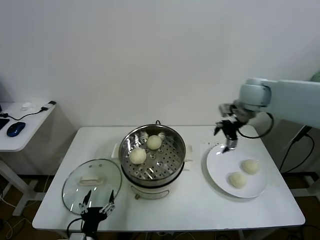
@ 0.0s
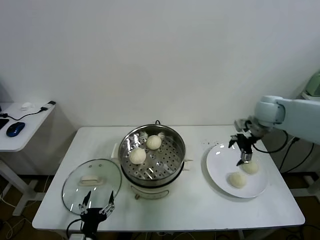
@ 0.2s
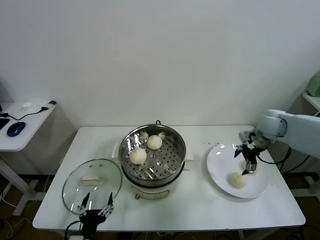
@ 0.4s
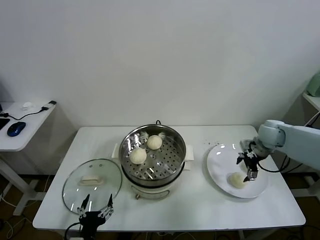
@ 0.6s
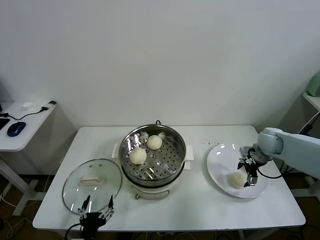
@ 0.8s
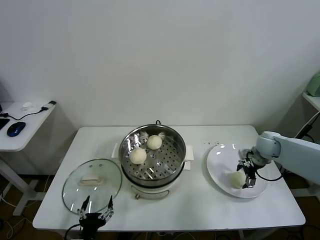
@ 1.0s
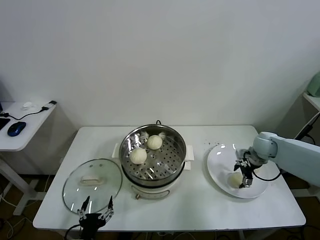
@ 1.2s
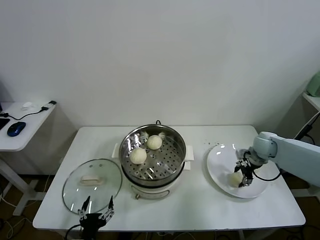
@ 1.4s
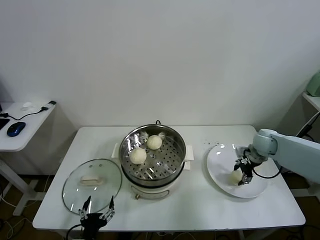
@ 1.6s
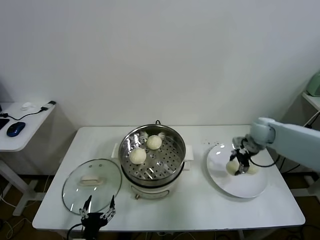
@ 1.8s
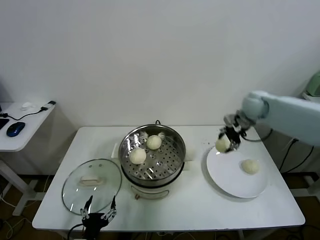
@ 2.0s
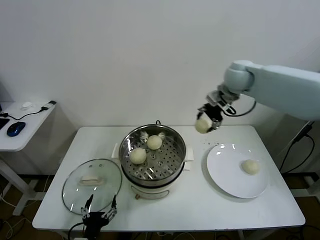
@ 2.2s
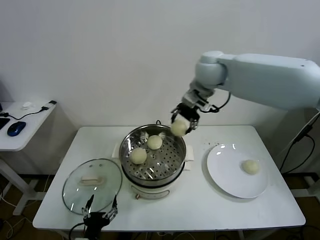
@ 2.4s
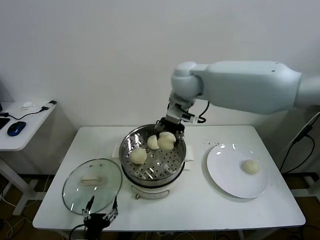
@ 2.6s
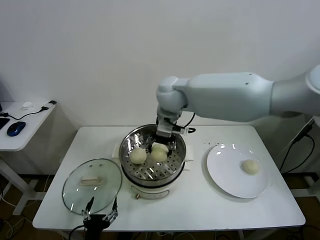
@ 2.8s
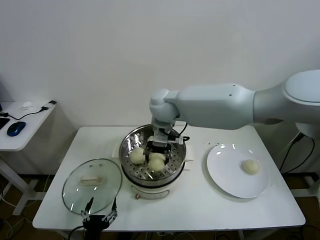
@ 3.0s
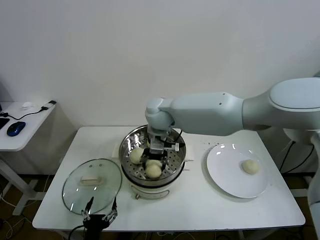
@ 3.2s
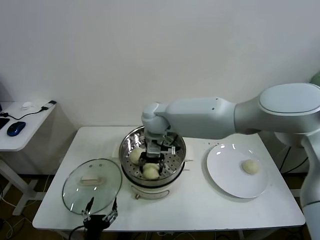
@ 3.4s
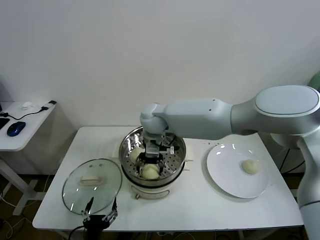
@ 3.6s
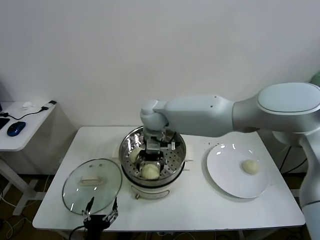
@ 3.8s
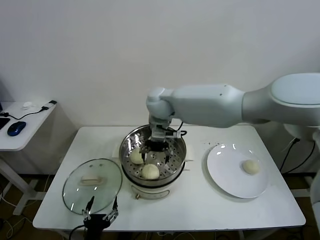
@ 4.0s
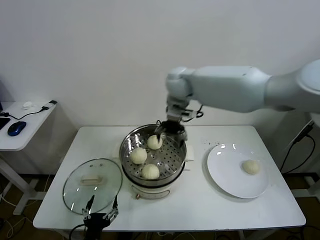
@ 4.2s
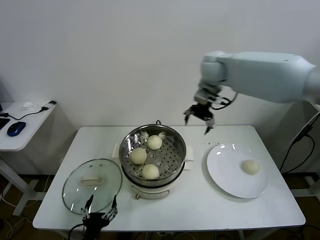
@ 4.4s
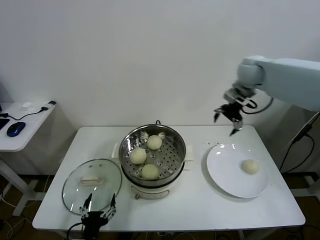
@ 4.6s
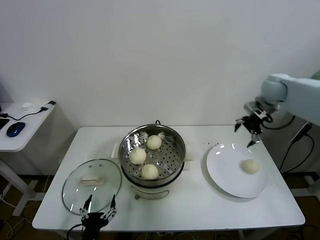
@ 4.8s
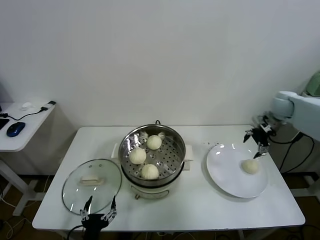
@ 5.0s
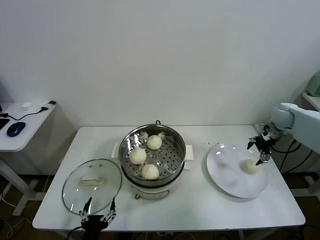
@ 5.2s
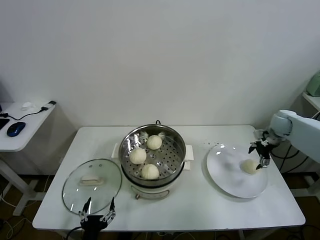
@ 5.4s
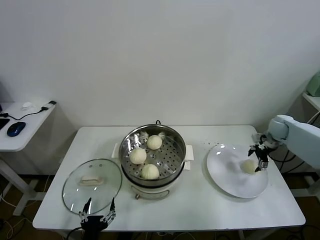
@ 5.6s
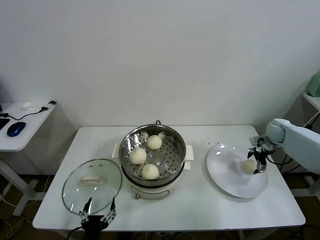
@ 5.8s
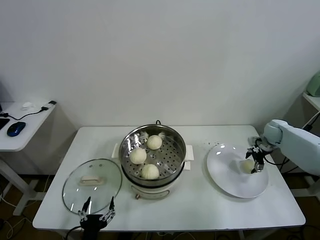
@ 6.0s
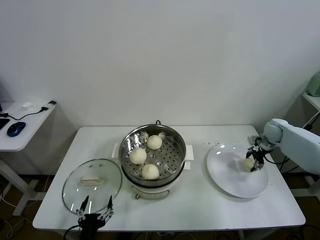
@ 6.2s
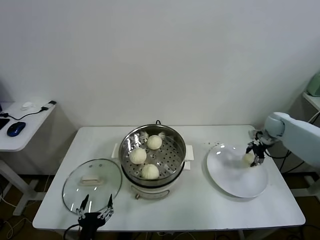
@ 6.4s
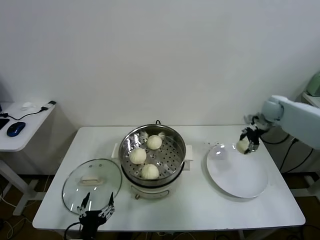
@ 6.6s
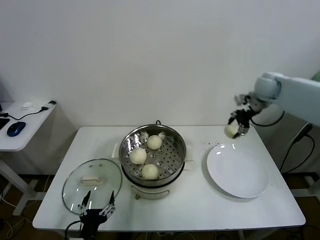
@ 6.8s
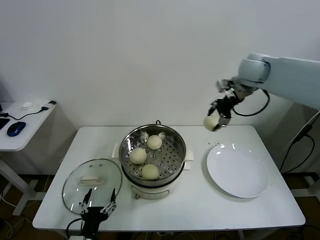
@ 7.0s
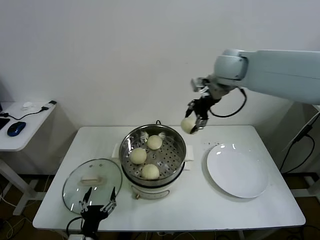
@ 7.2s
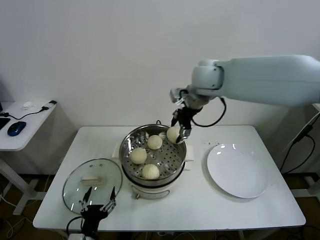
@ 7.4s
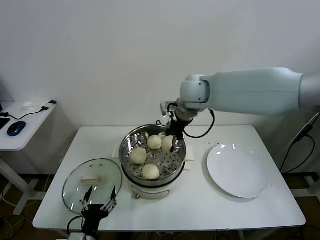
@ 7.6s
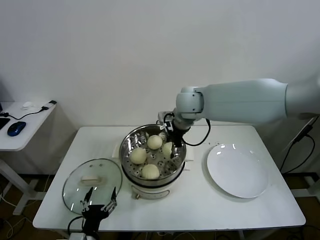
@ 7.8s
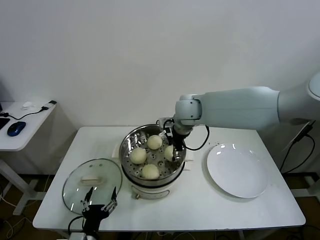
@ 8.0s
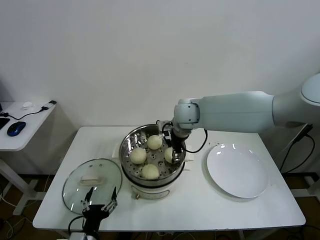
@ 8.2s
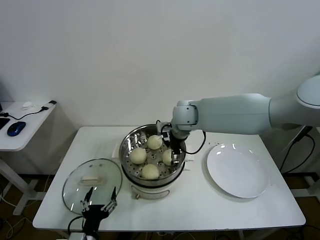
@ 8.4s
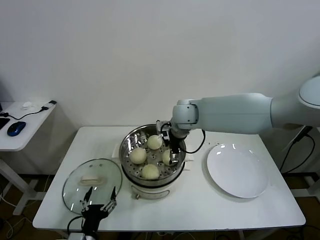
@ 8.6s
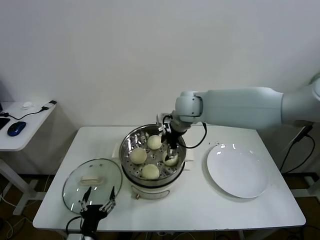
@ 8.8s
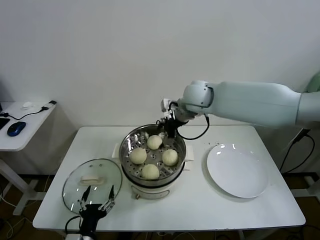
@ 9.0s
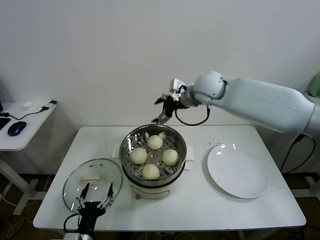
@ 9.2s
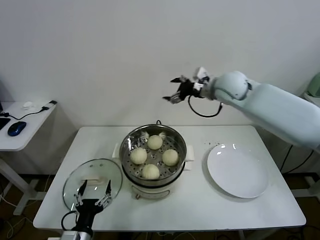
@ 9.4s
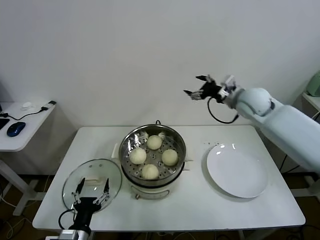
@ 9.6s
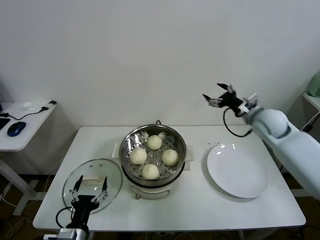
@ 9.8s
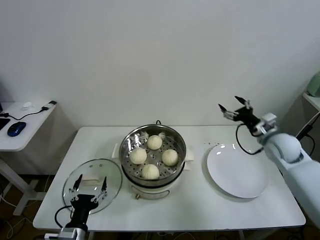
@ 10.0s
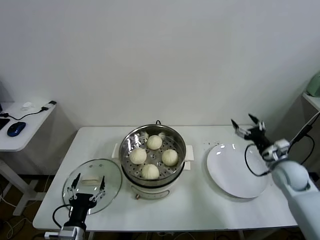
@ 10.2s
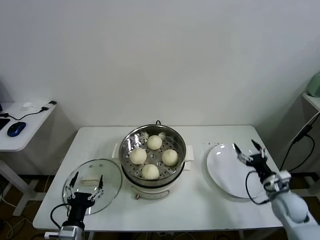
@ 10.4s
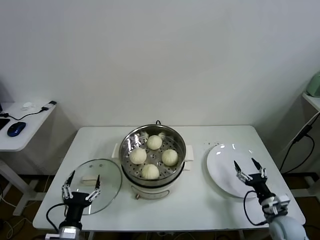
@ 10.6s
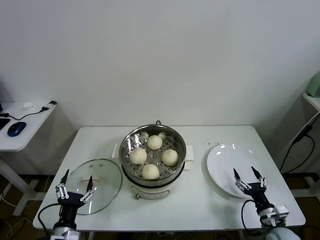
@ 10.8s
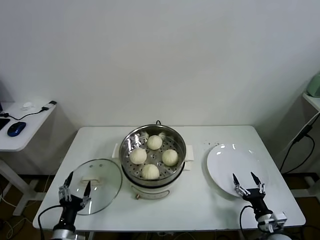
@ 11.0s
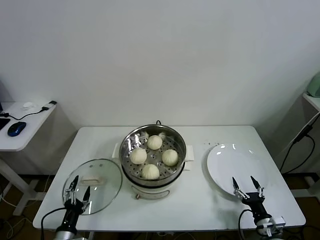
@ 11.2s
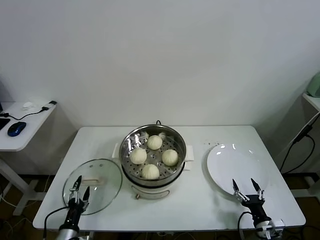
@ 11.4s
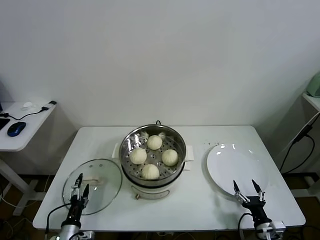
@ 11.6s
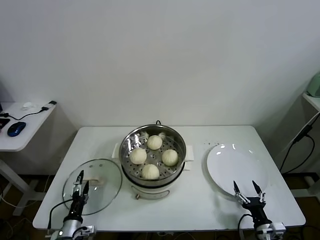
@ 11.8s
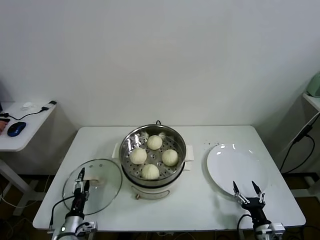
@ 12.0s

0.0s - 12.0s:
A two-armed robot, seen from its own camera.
Task of the whole recording: take steamed baozi put them in steamer.
Step, 0.0s - 1.6s: Grasp the baozi in the plate with right gripper.
Step, 1.8s - 3.8s: Place the baozi on the steamer with right gripper.
Step, 4.0s - 6.2s: Grasp the baozi in the plate with right gripper.
Step, 6.4s - 8.4s: Place the baozi on the steamer with right gripper.
0.0s - 1.6s: The right gripper shifts approximately 20 cm downward and to the right, and closes up.
1.6s - 3.0s: The right gripper shifts about 40 cm to the left and upward.
3.0s - 4.4s: The right gripper goes approximately 25 cm to the right, upward and forward, and opens.
4.4s - 6.0s: The right gripper is displaced to the right and downward by some 40 cm.
6.0s - 7.6s: The right gripper heads to the left and upward, covering about 40 cm, and closes its fingers.
7.6s - 9.0s: The right gripper travels downward and back again, approximately 10 cm each way, and opens its fingers.
9.0s - 10.4s: The right gripper is displaced to the right, downward and backward by roughly 50 cm.
10.4s - 12.0s: The right gripper goes roughly 20 cm backward, downward and to the left. Meanwhile the left gripper travels downward, forward and to the left by about 15 cm.

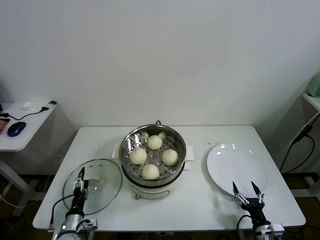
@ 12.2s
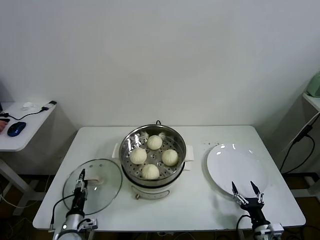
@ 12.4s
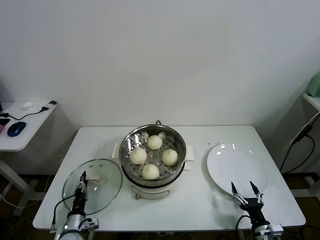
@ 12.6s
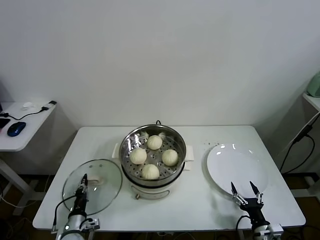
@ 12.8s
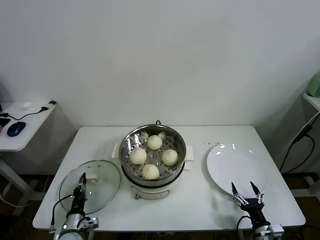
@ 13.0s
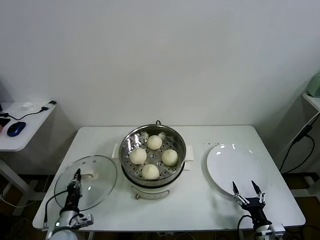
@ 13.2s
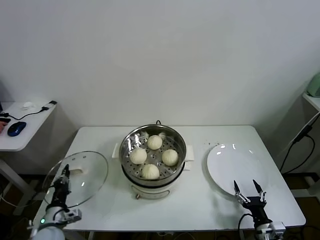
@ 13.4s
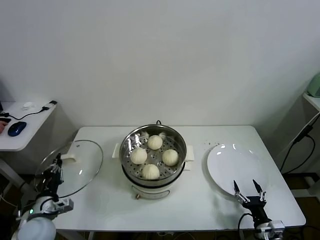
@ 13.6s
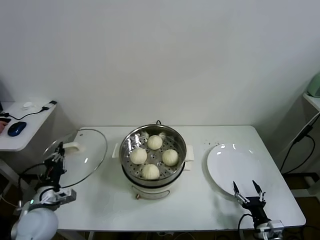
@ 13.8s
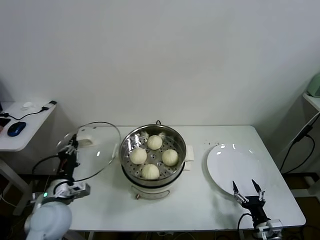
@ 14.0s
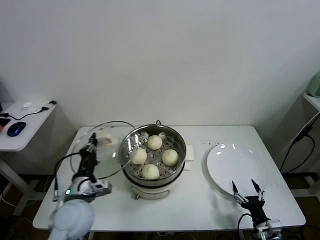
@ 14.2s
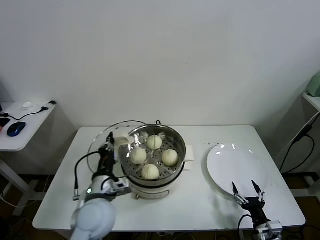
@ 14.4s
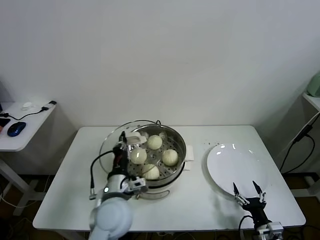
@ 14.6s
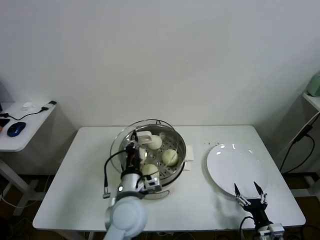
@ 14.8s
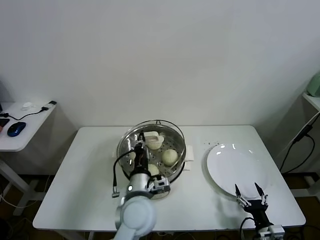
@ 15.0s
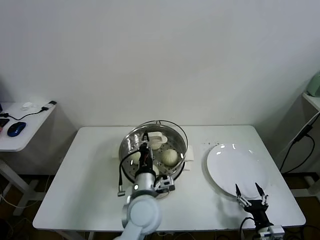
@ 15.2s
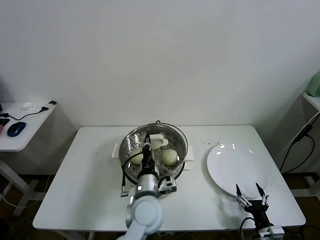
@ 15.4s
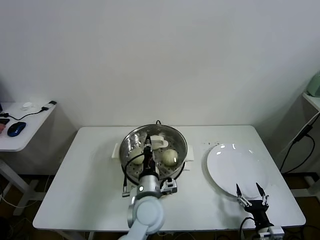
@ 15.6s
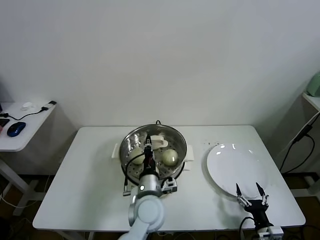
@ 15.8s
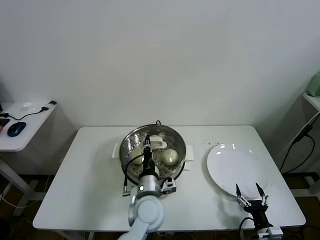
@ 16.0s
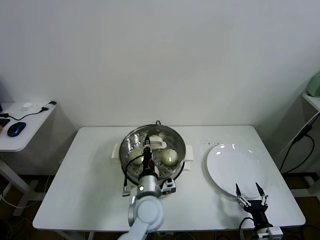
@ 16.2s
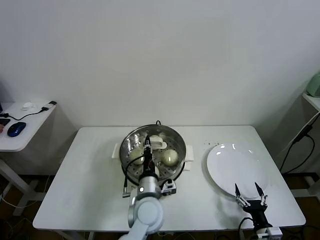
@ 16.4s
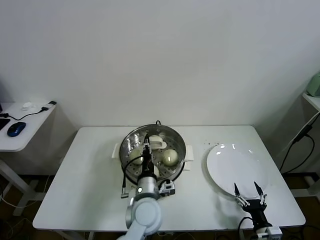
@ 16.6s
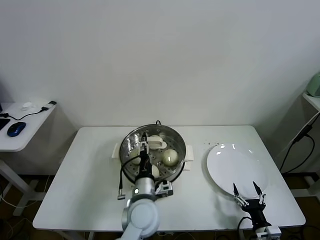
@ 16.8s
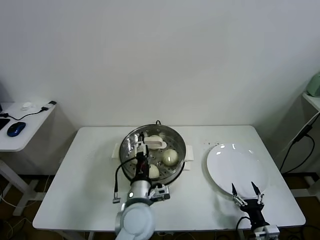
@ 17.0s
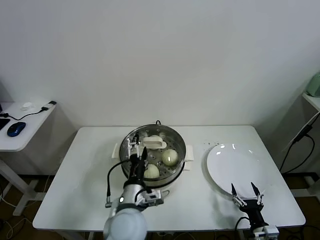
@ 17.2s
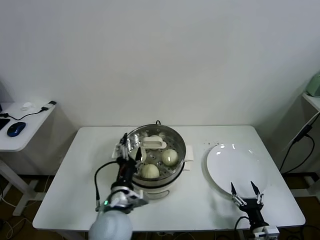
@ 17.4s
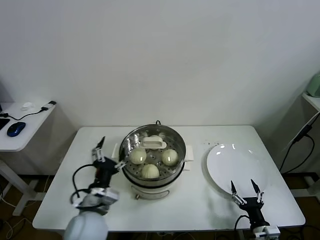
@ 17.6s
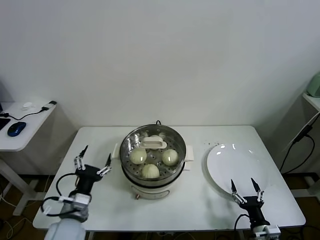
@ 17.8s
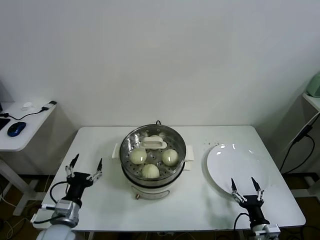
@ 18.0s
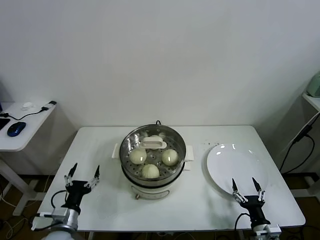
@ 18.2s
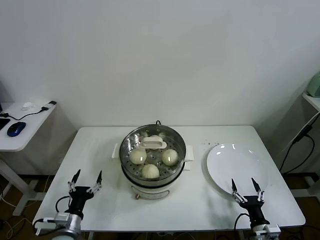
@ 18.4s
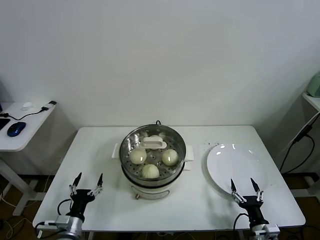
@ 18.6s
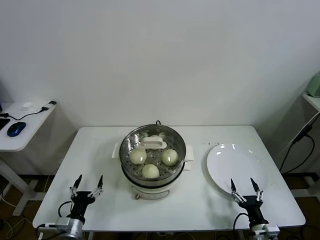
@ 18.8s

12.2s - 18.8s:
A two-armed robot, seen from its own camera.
Task of the whole recording: take steamed baozi put them in steamer.
Step, 13.0s - 17.0s: Place the pot lid on the steamer with left gripper.
12.2s - 13.8s: The left gripper goes about 20 cm upward, and closes its fingers.
13.8s - 15.4s: The left gripper shifts some 30 cm to the right.
15.4s - 17.2s: The left gripper opens up.
17.2s - 18.8s: The left gripper goes approximately 30 cm to the left and downward.

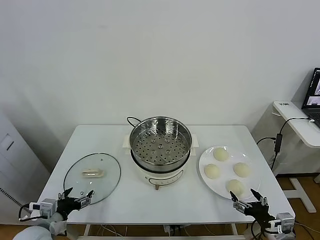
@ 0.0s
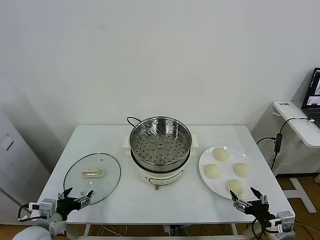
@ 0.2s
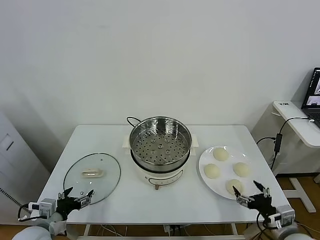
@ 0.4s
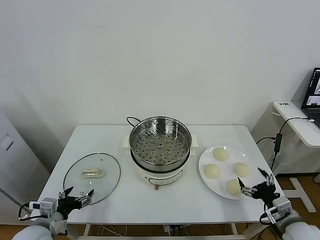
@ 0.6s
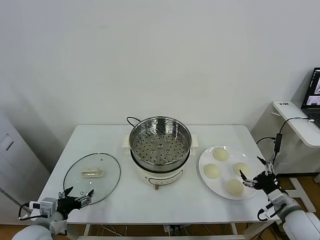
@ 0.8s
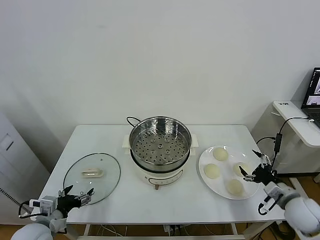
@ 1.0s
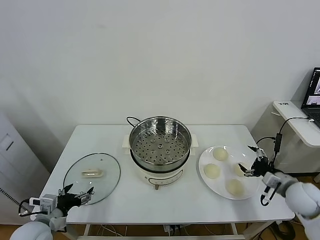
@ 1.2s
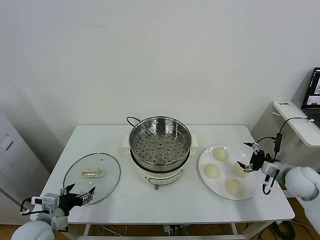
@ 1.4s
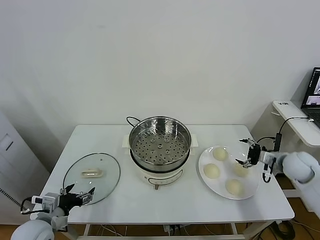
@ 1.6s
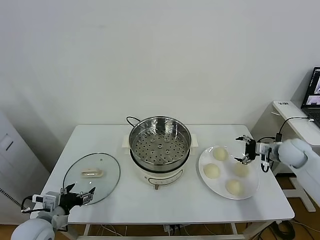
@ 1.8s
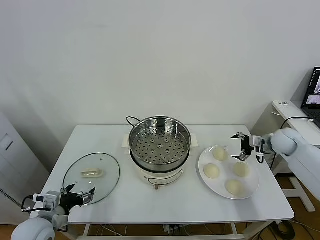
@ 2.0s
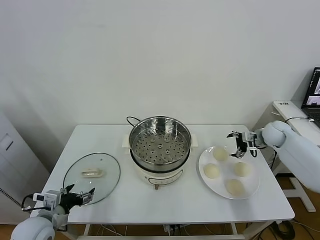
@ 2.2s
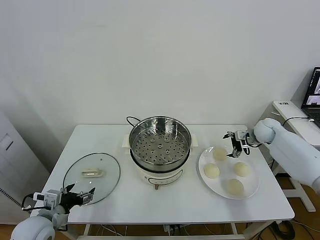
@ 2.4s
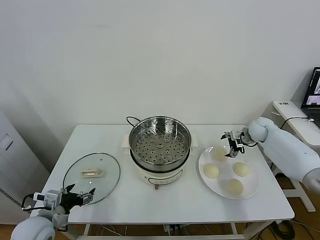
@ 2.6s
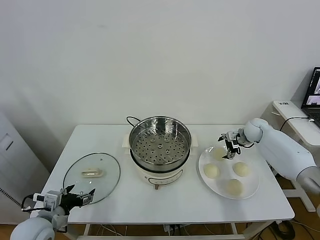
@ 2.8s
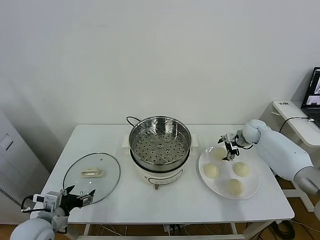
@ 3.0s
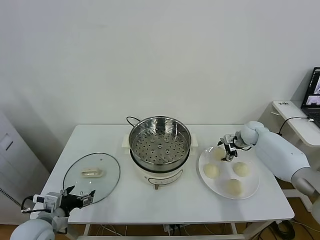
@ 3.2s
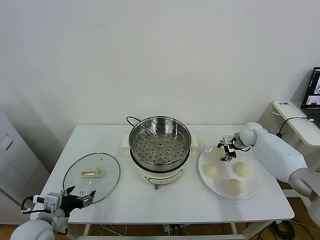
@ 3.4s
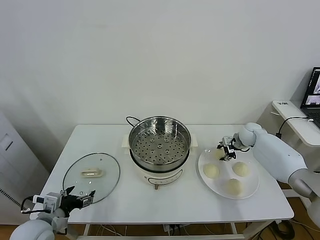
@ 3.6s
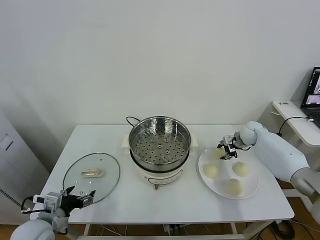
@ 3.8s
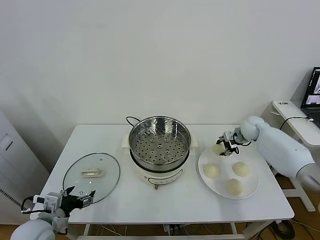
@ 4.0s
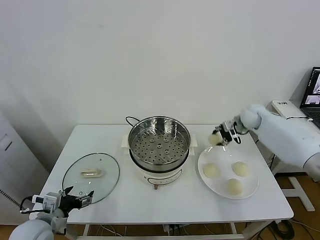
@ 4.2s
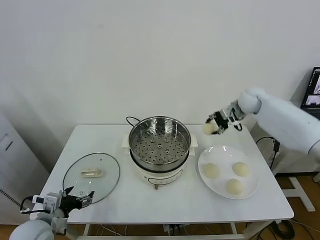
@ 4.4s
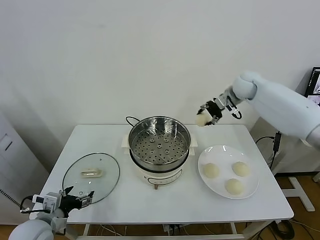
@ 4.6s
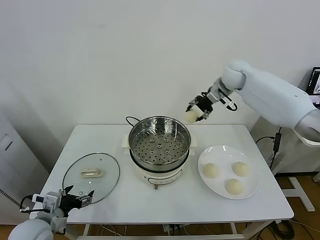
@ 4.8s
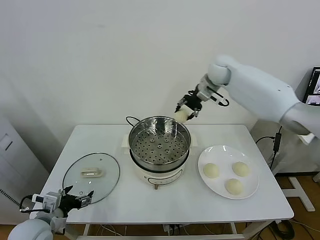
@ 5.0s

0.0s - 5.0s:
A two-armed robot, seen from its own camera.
Task of the whole recording: take steamed baozi put them in steamer.
Step, 0.0s - 3.2s: Grasp the baozi in the plate with right gripper.
1.6s - 3.4s: The right gripper heads forward and to the left, covering roughly 15 cm, and closes.
3.4s - 5.0s: The right gripper goes approximately 35 cm upward and to the left.
